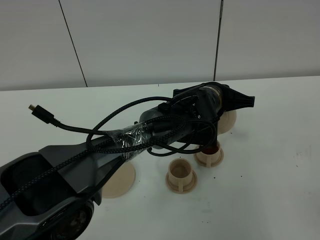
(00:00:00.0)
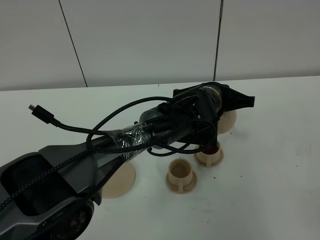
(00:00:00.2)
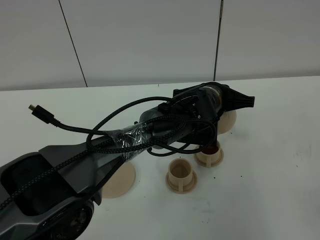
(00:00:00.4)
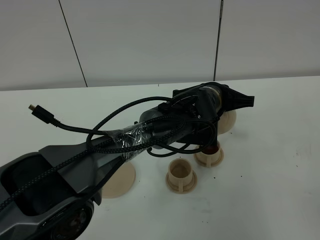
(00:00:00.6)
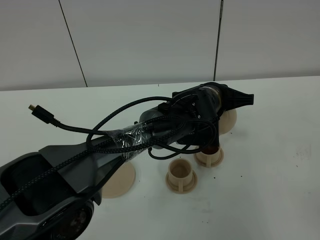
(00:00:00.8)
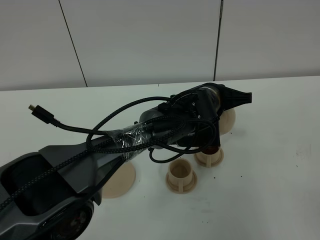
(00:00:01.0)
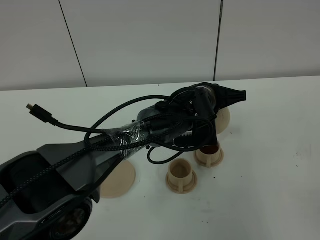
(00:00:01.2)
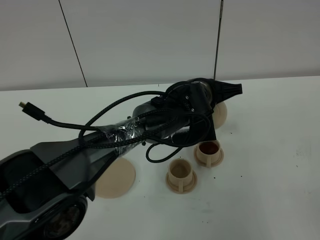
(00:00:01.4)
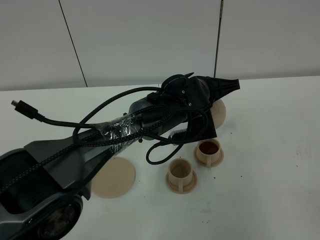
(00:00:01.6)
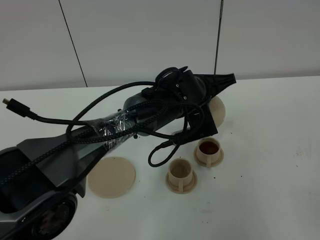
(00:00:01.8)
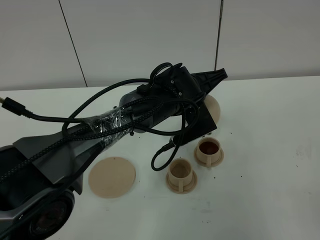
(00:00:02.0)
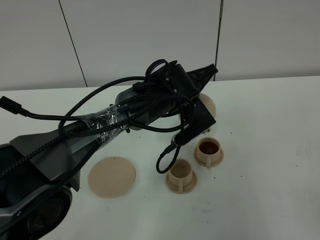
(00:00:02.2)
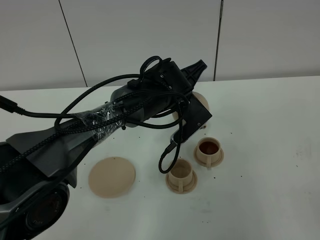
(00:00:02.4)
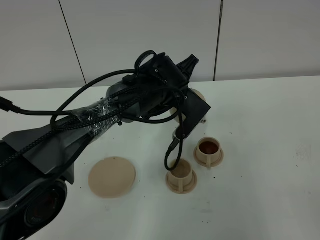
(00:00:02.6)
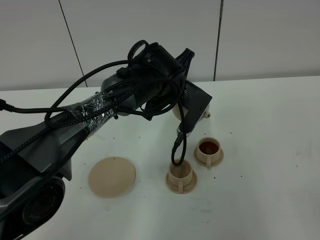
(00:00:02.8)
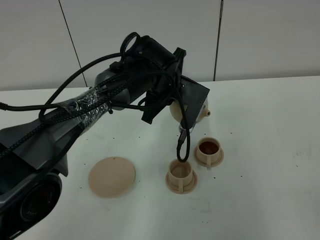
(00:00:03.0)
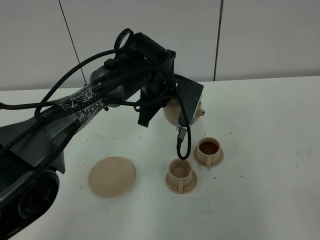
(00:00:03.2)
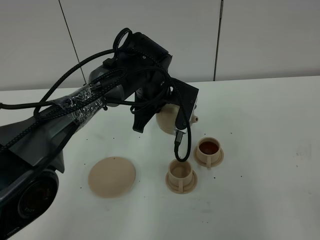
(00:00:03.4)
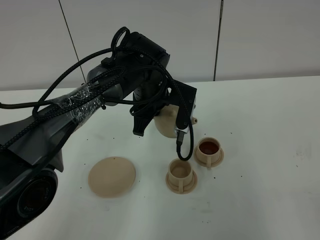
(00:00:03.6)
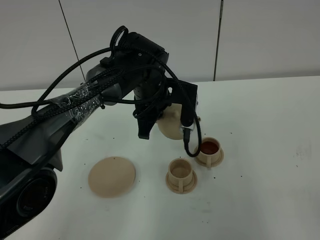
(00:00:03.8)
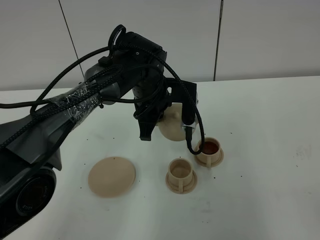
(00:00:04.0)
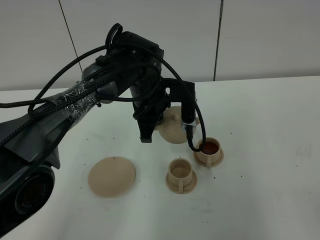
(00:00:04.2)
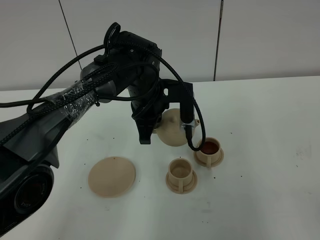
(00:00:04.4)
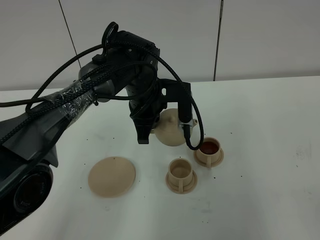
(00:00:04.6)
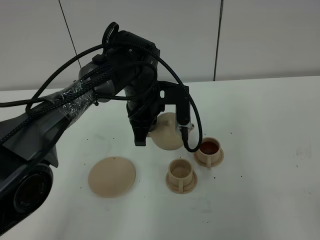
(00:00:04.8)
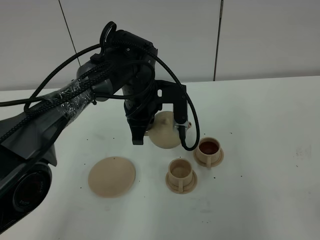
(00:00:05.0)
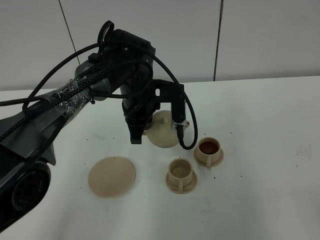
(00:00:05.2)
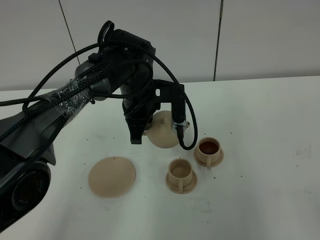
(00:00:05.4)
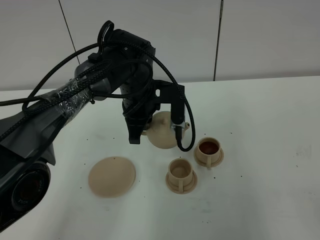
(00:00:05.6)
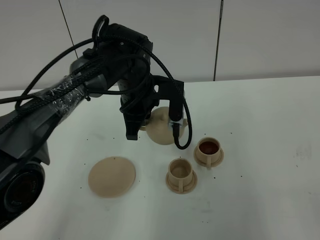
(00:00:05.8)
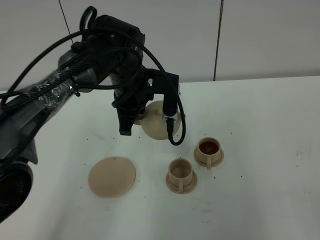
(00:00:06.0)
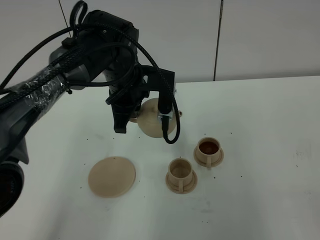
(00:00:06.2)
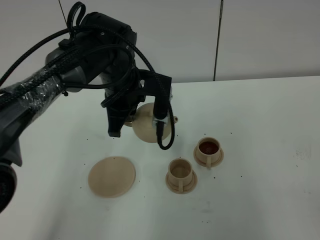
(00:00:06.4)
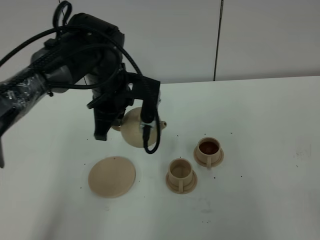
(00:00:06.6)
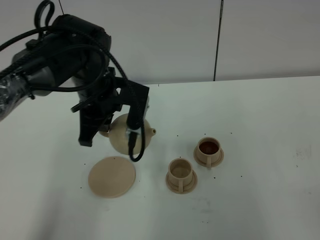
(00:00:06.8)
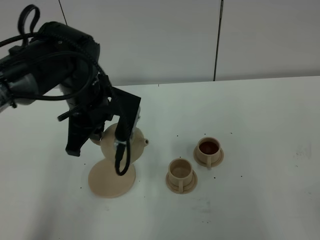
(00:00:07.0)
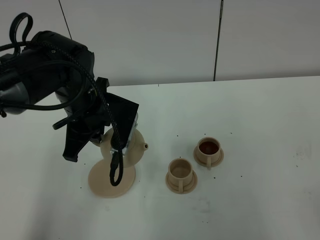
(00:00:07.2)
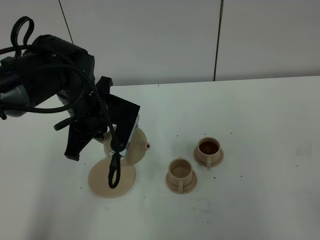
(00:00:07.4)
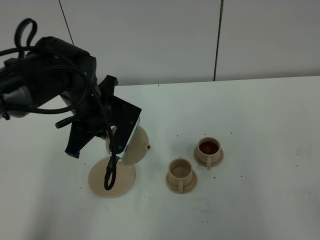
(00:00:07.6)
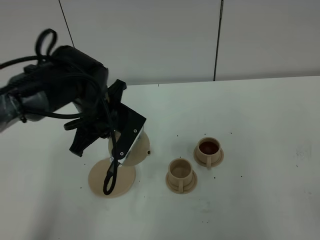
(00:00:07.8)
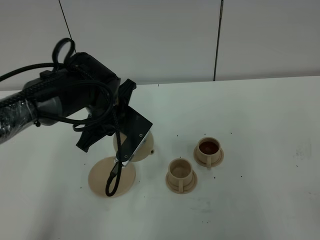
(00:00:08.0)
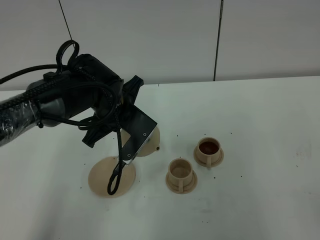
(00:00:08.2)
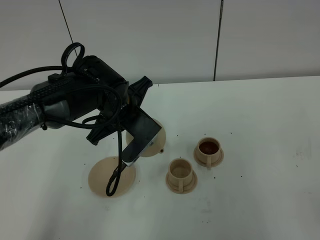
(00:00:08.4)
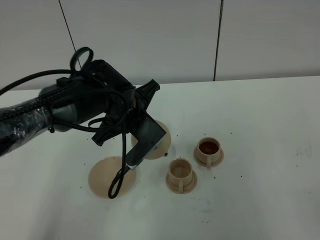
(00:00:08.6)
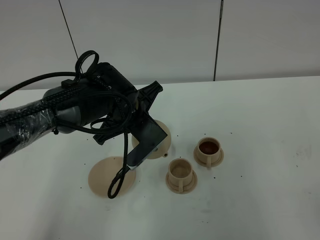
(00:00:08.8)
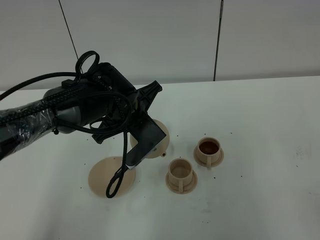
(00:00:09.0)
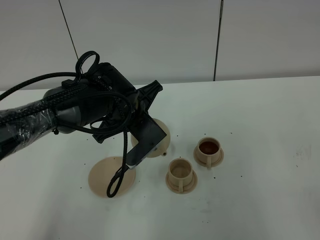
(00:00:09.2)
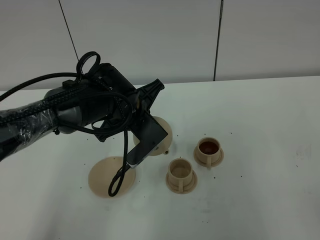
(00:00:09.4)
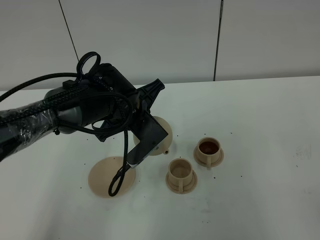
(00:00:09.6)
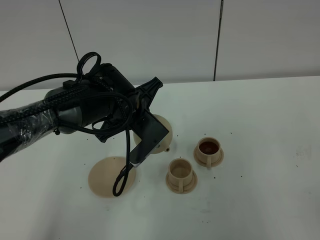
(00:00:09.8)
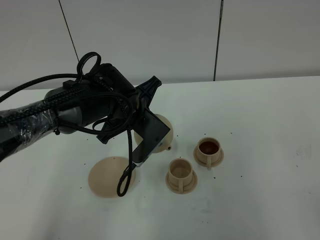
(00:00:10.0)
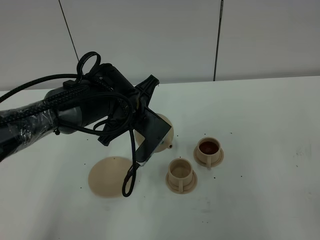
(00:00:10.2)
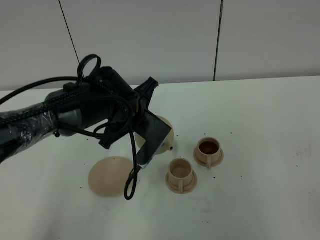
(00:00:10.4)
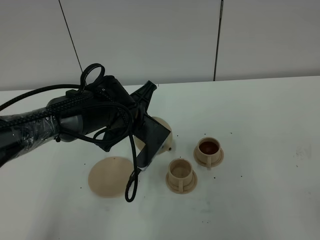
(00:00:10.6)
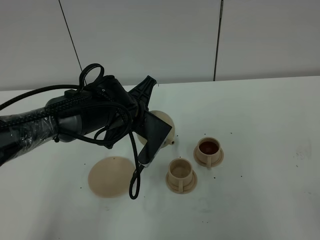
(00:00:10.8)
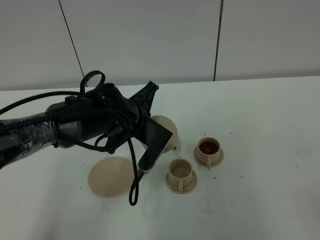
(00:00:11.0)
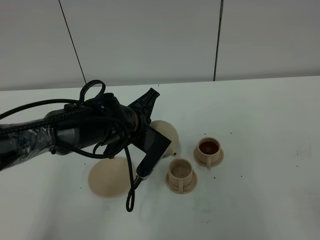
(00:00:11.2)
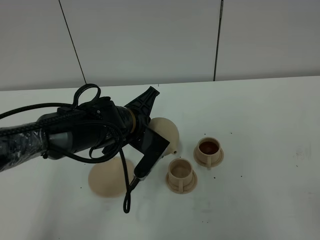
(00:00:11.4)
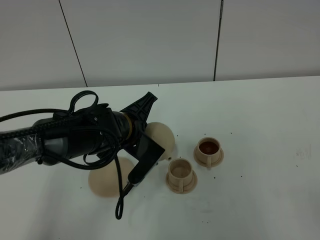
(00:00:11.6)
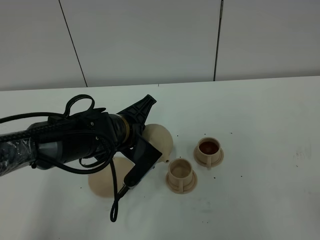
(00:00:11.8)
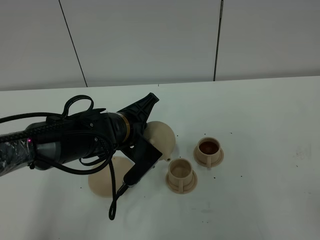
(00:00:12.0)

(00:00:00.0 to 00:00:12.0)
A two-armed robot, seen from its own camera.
Task of the whole recording: grasp the brown teapot and pour the tea into the two brown teacups one by one, put the brown teapot back in its original place.
00:00:00.0 - 00:00:01.6: There are only small adjustments of the grippers.
00:00:01.6 - 00:00:03.0: The left gripper moves to the left, approximately 5 cm.
00:00:04.4 - 00:00:06.0: There are only small adjustments of the grippers.
00:00:06.0 - 00:00:07.6: The left gripper goes about 10 cm to the left and backward.
00:00:07.6 - 00:00:09.0: The left gripper goes about 5 cm to the right.
00:00:09.0 - 00:00:12.0: The grippers stay close to where they were, moving slightly.

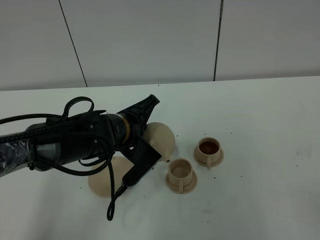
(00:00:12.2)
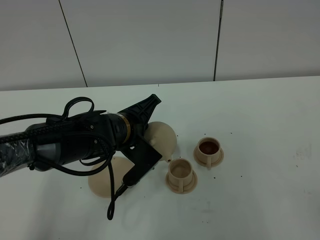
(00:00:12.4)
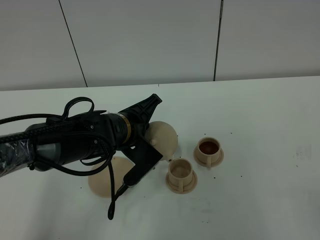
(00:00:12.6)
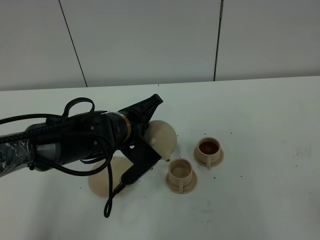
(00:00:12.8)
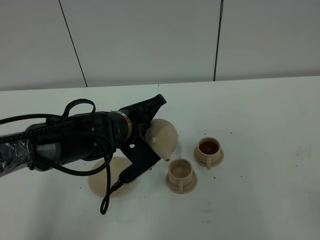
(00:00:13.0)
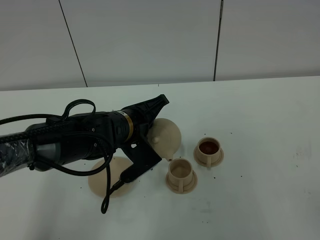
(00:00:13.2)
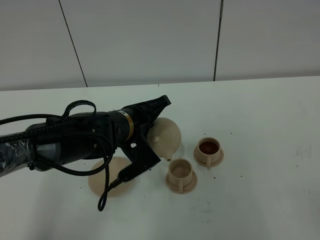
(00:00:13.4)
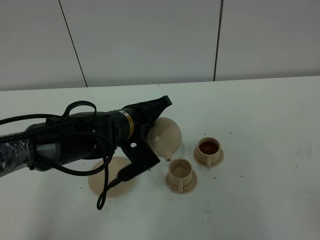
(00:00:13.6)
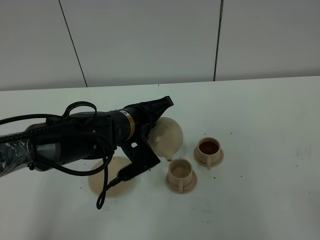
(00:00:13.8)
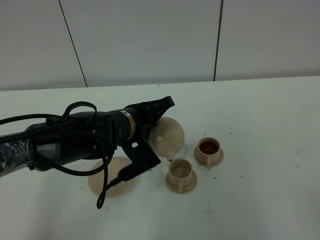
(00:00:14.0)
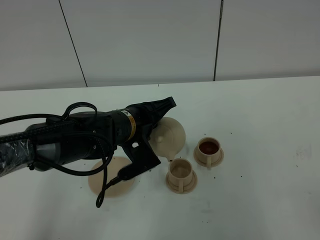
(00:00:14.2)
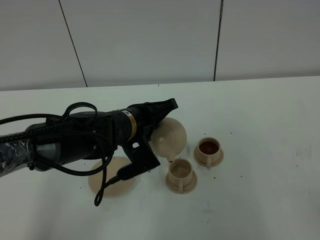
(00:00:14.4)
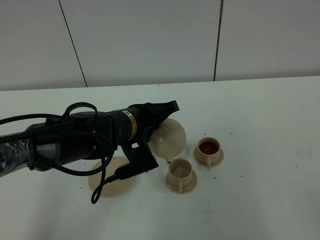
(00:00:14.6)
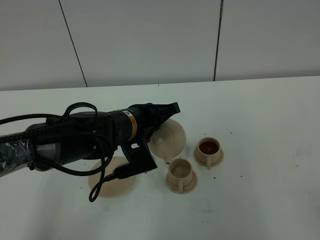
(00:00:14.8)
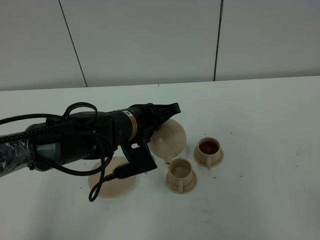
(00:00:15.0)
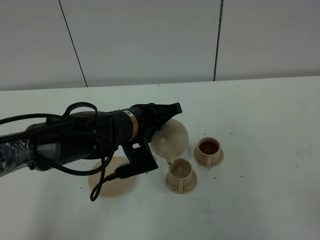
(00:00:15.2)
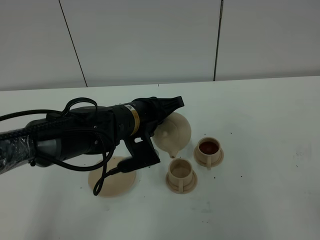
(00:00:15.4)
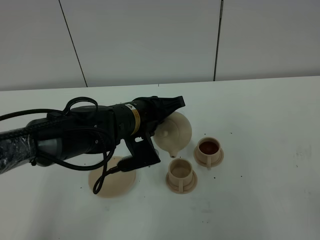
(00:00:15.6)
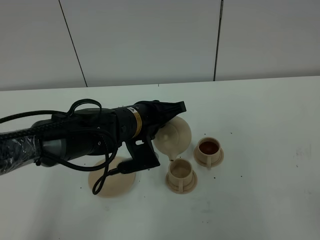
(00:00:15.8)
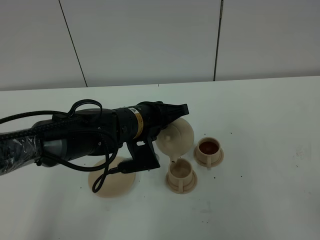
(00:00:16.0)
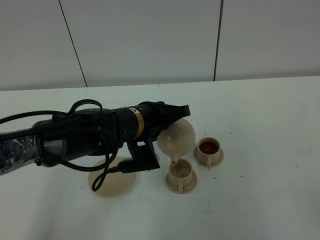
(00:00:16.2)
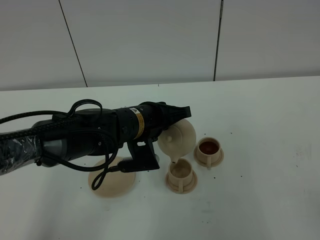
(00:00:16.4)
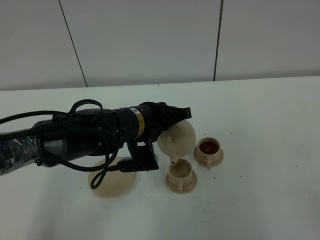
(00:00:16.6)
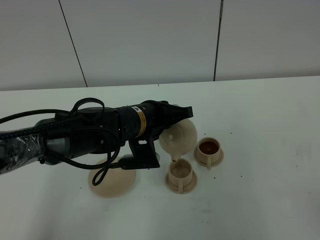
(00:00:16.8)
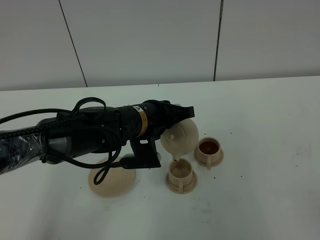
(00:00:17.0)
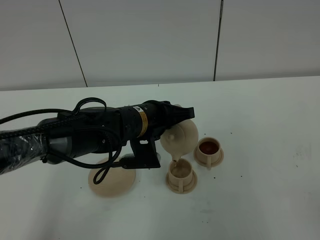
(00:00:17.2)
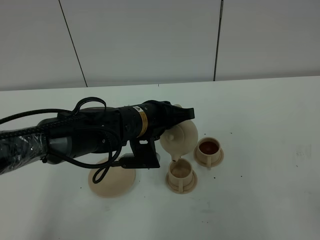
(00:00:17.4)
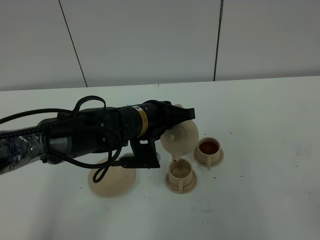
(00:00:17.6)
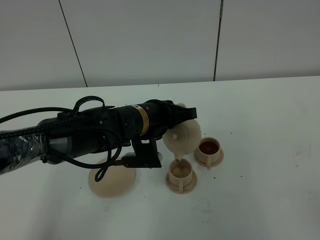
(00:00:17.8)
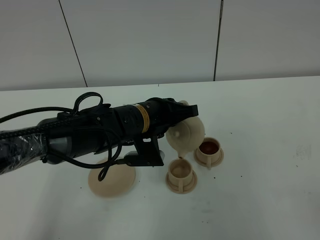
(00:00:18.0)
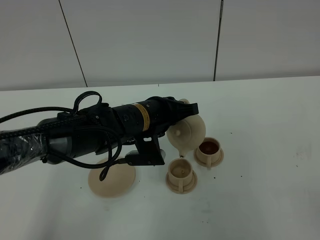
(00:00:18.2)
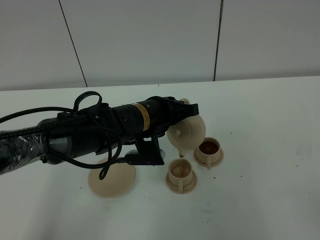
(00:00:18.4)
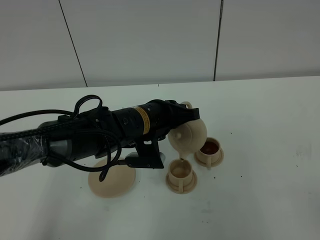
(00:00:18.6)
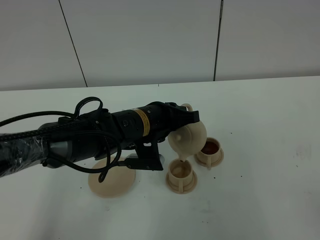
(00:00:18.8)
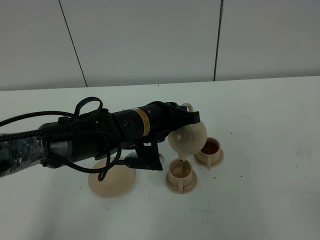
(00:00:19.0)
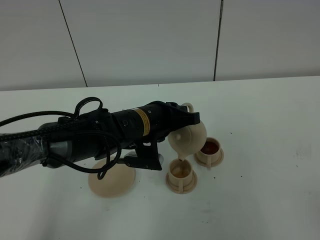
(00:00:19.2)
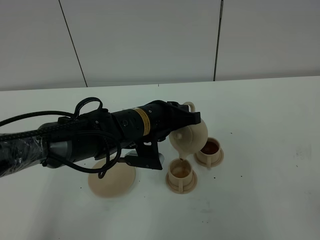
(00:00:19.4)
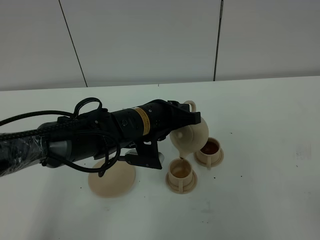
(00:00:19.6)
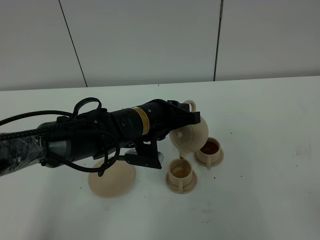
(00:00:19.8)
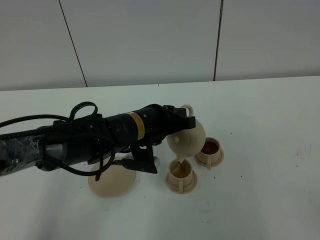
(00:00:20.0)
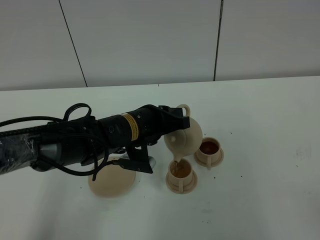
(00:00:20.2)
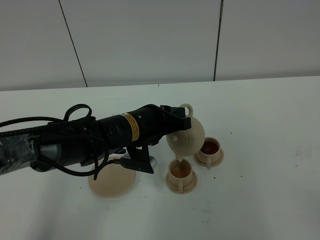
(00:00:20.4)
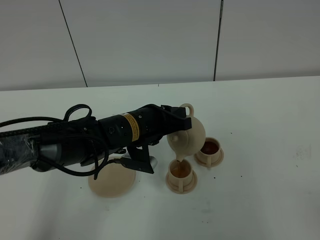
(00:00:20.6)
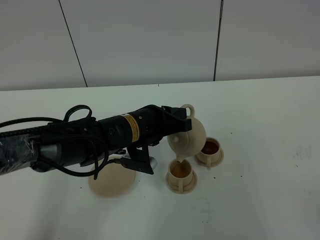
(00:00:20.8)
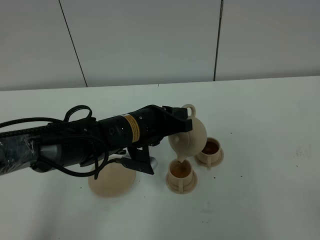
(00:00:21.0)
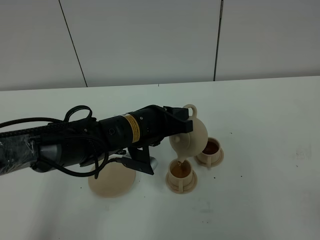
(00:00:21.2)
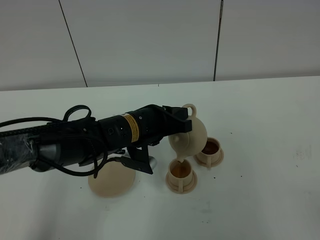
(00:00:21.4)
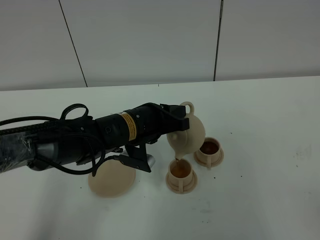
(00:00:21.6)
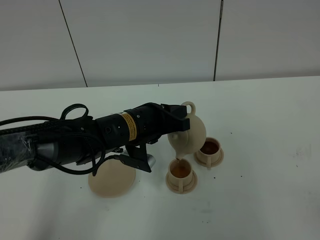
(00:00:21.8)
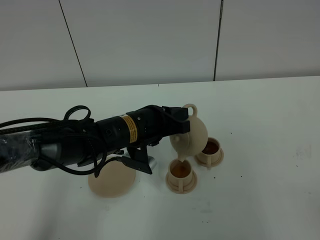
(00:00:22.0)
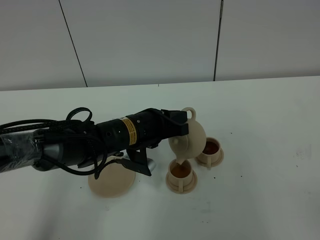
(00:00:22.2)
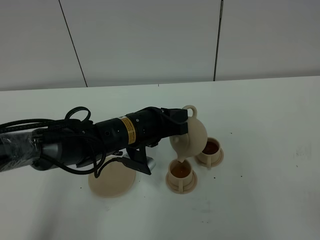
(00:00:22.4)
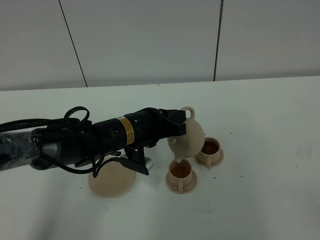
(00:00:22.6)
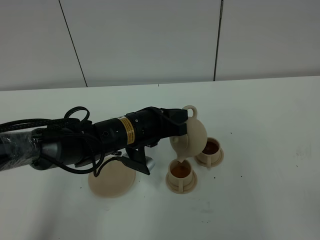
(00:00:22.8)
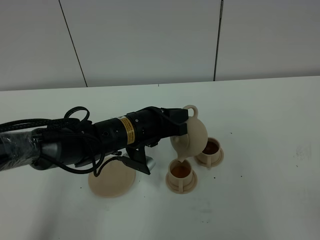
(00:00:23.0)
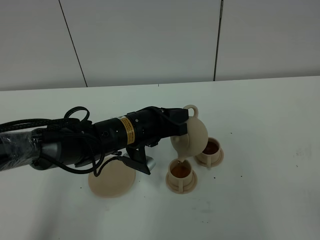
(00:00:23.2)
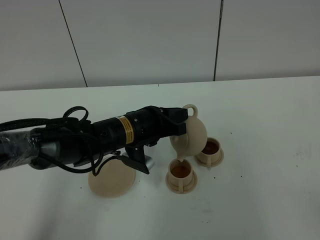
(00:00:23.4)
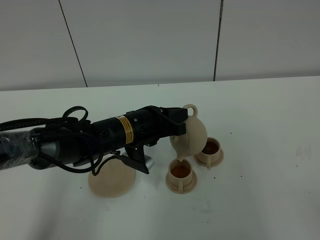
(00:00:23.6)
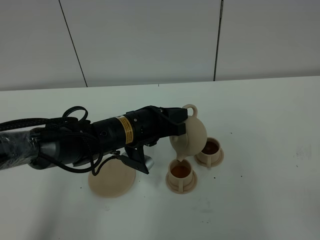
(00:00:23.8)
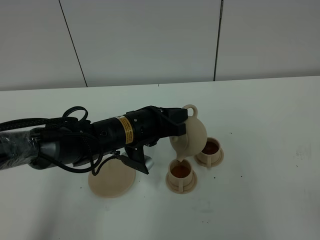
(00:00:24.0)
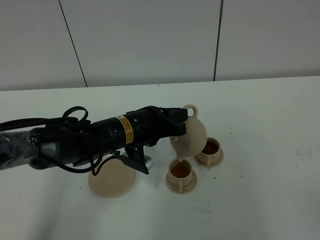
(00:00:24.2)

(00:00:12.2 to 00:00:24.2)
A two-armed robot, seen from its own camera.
Task of the whole recording: grasp the brown teapot and pour the tea into the two brown teacups one by one, put the brown teapot back in its original place.
00:00:12.2 - 00:00:13.8: The grippers stay close to where they were, moving slightly.
00:00:13.8 - 00:00:15.2: The grippers stay close to where they were, moving slightly.
00:00:15.2 - 00:00:18.2: There are only small adjustments of the grippers.
00:00:18.2 - 00:00:22.6: The grippers move only a little.
00:00:22.6 - 00:00:24.2: Both grippers stay about where they are.
